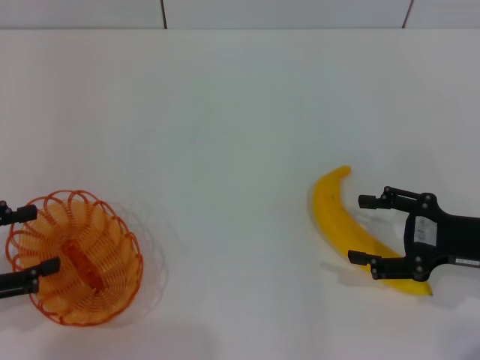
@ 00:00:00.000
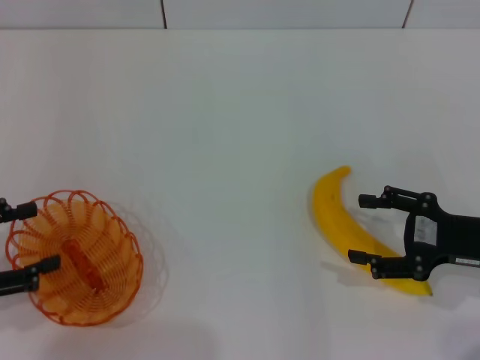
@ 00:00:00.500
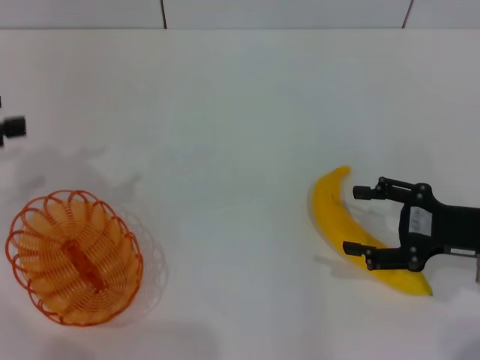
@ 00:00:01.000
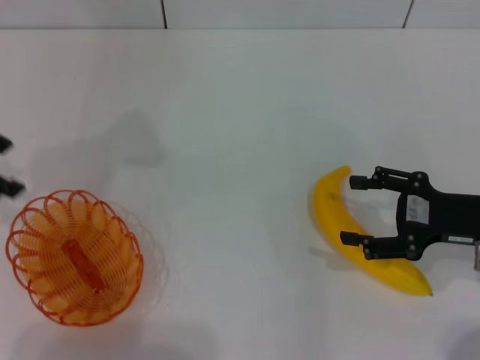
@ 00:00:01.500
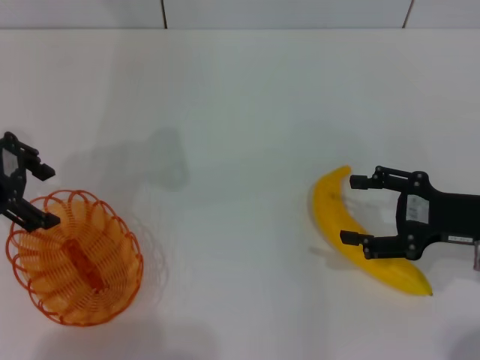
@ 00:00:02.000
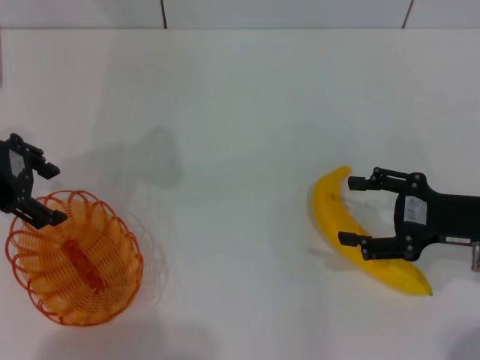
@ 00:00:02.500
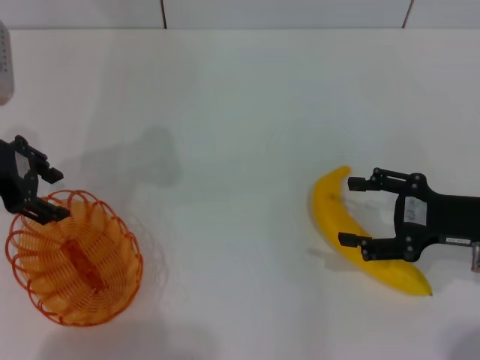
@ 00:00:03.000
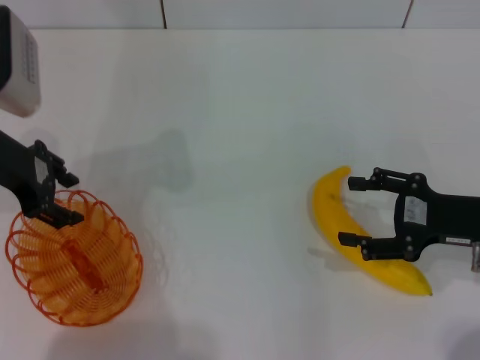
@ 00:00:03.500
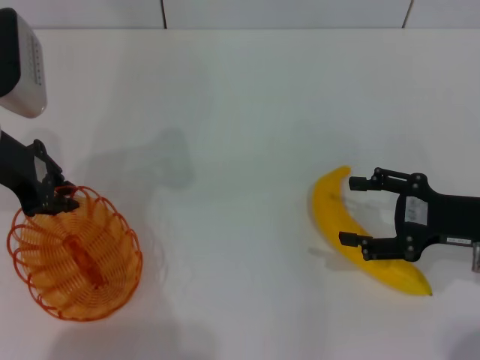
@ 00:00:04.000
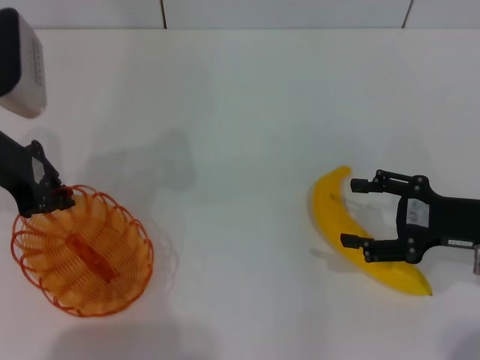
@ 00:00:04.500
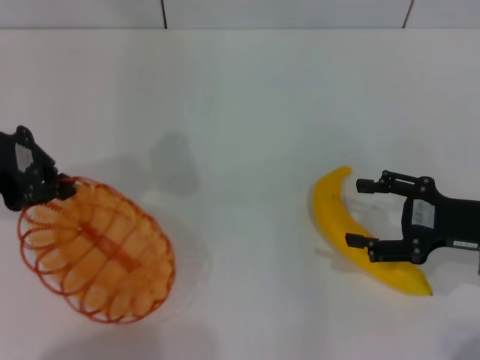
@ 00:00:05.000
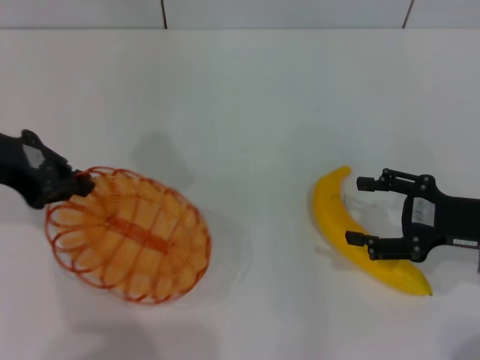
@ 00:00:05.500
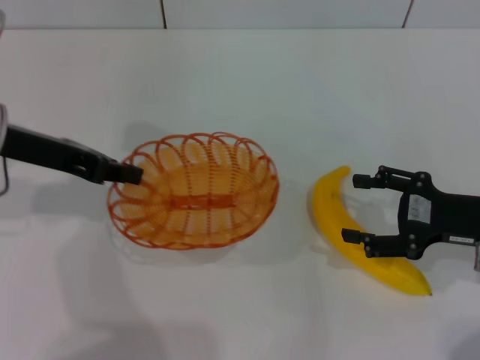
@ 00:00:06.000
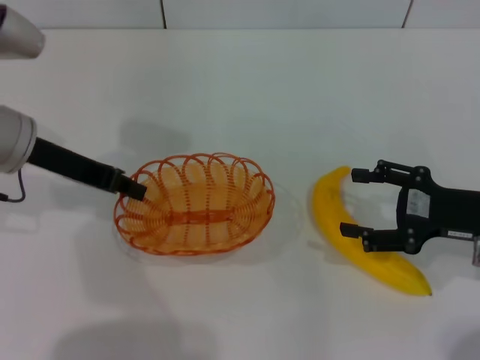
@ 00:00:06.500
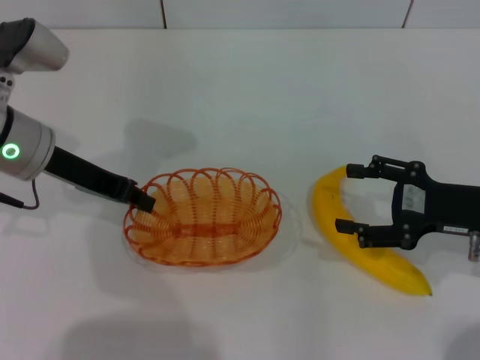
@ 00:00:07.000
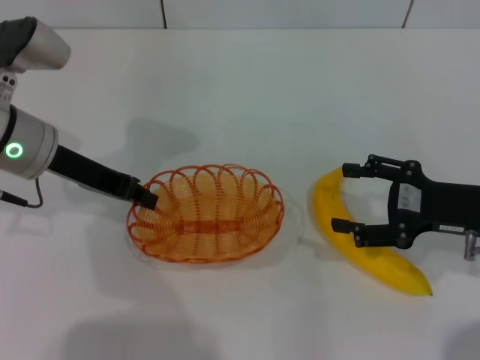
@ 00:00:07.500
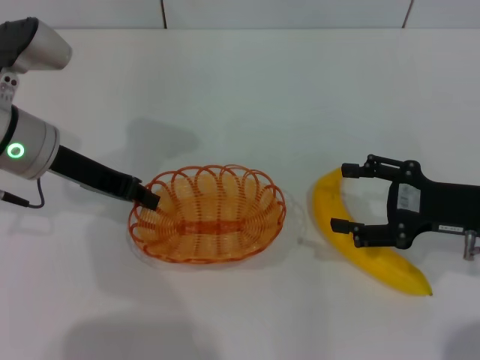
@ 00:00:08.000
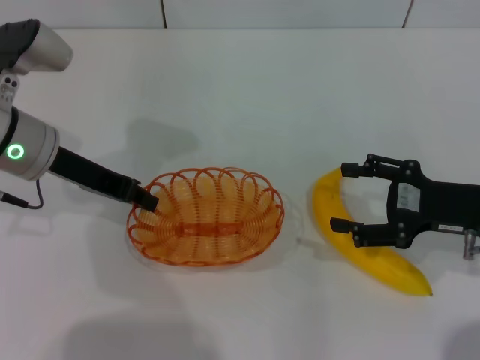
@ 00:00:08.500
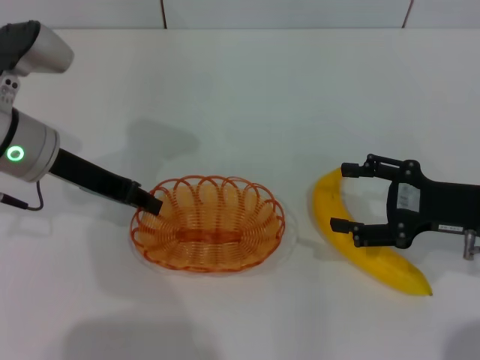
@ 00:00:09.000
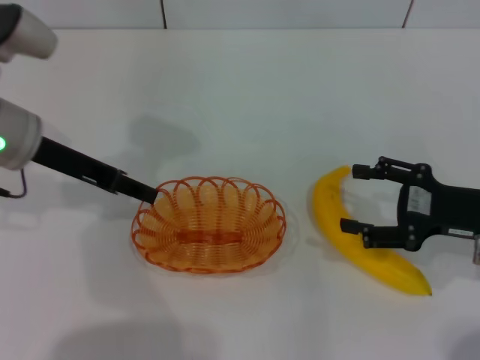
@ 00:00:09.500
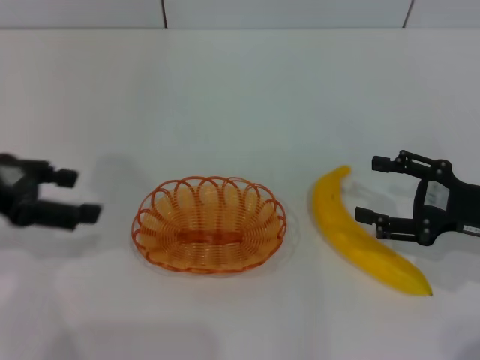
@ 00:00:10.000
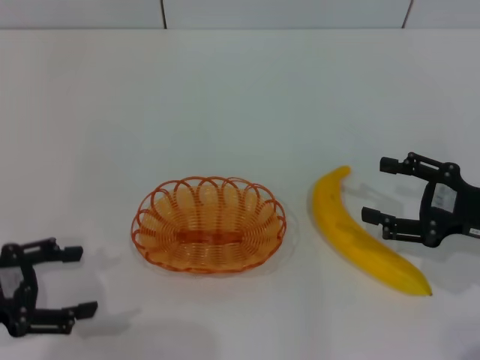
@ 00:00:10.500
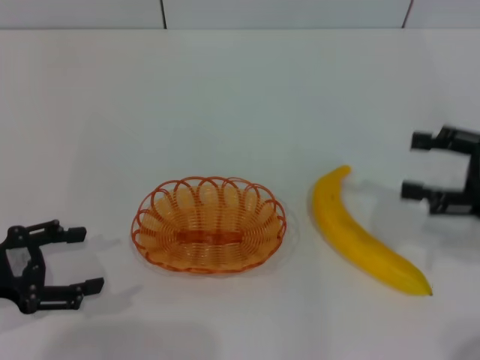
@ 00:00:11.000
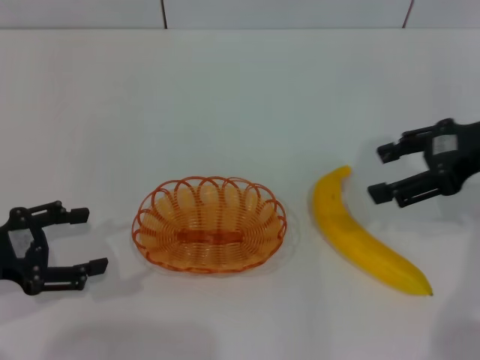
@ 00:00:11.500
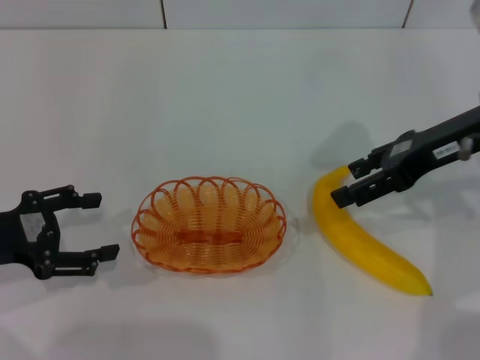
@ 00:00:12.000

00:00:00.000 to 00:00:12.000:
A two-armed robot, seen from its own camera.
Step, 00:00:00.000 to 00:00:05.000: Pick up the basket with the left gripper.
Step, 00:00:05.500 to 00:00:09.500: Place the basket in the center of view with the left gripper.
00:00:00.000 to 00:00:02.000: The left gripper shifts some 20 cm forward, upward and to the right.
00:00:02.000 to 00:00:04.000: The left gripper closes its fingers.
00:00:04.000 to 00:00:06.000: The left gripper closes.
00:00:06.000 to 00:00:08.000: The left gripper shifts by approximately 5 cm.
00:00:08.000 to 00:00:10.000: The left gripper shifts about 10 cm to the left and backward, and opens its fingers.
00:00:10.000 to 00:00:12.000: The left gripper heads downward, covering some 10 cm, while the right gripper moves upward, forward and to the left, about 15 cm.

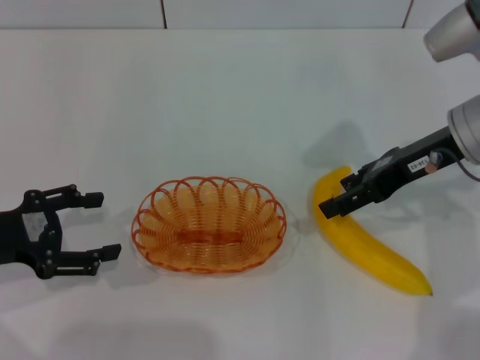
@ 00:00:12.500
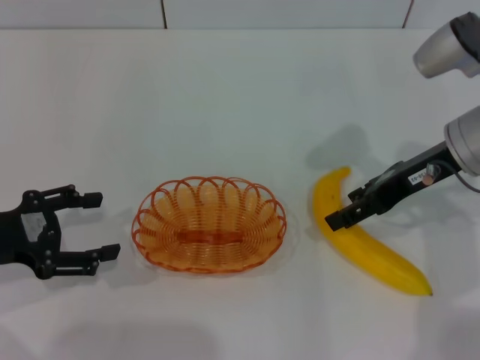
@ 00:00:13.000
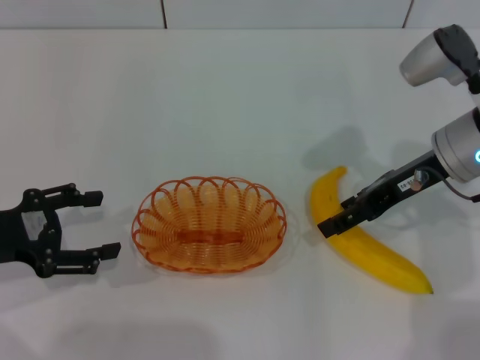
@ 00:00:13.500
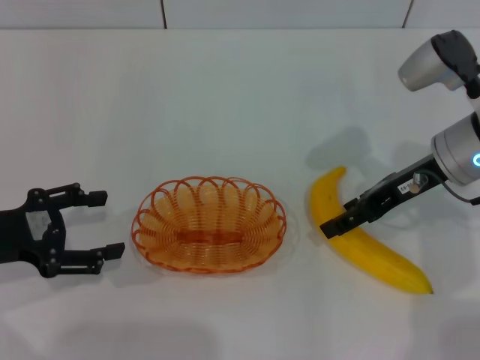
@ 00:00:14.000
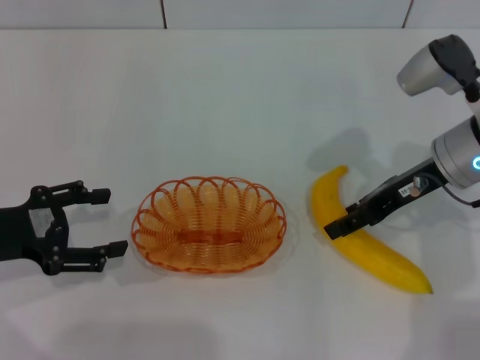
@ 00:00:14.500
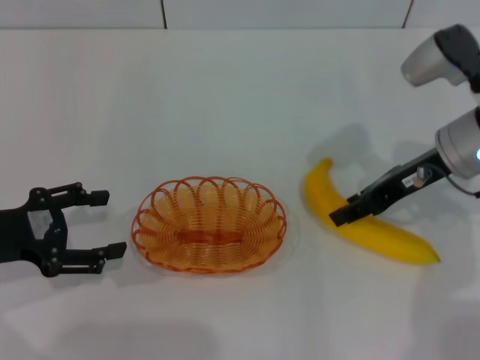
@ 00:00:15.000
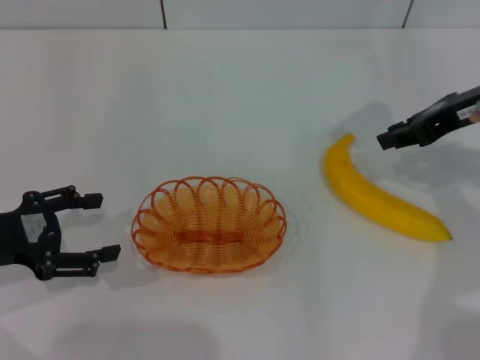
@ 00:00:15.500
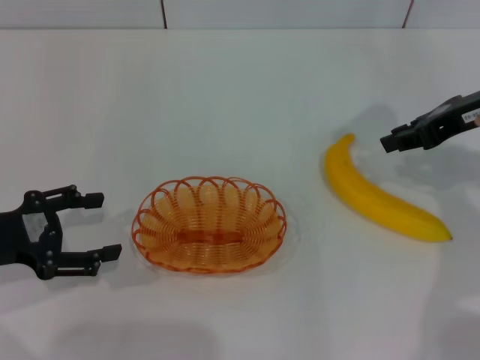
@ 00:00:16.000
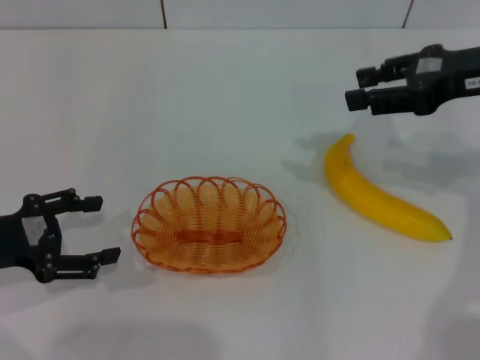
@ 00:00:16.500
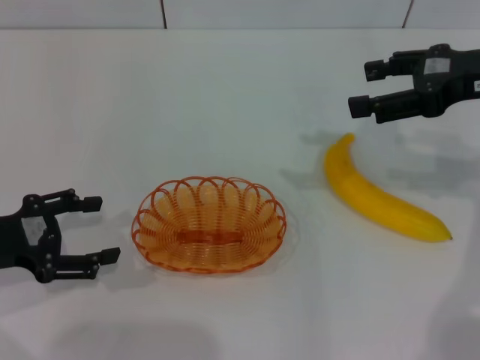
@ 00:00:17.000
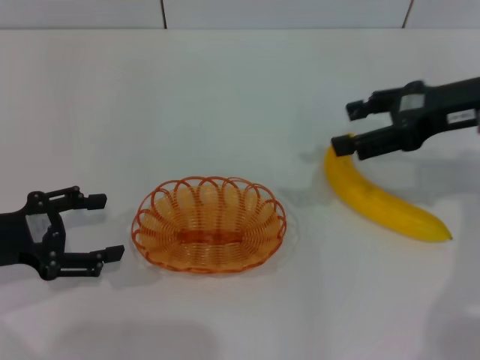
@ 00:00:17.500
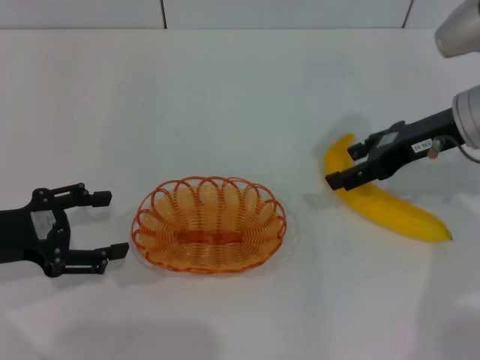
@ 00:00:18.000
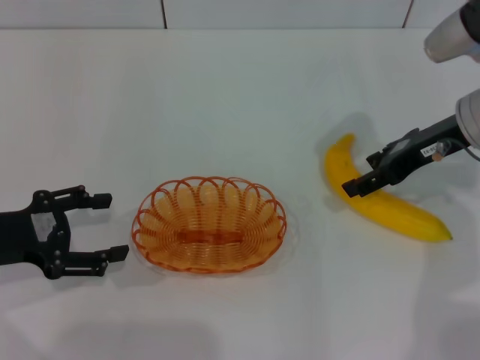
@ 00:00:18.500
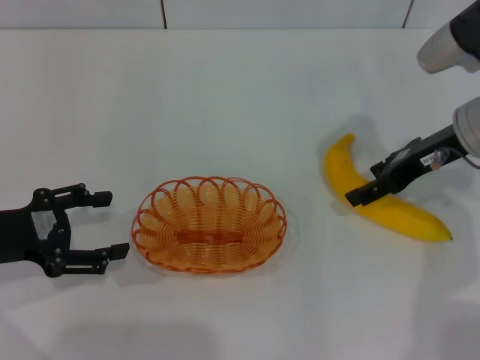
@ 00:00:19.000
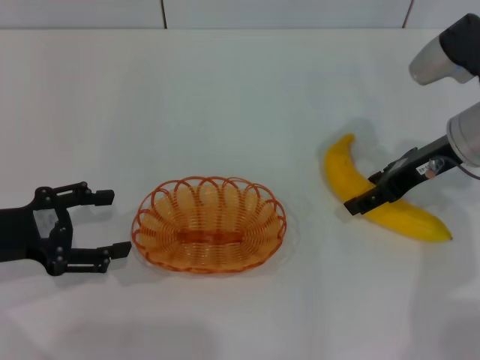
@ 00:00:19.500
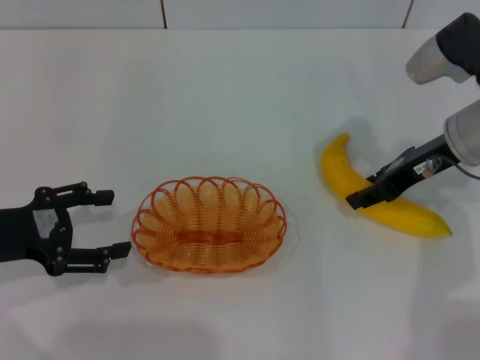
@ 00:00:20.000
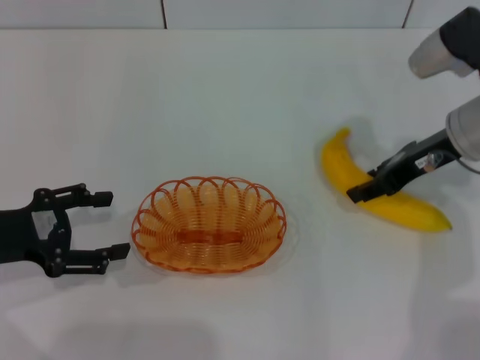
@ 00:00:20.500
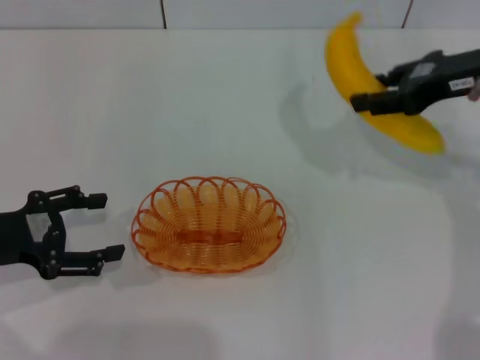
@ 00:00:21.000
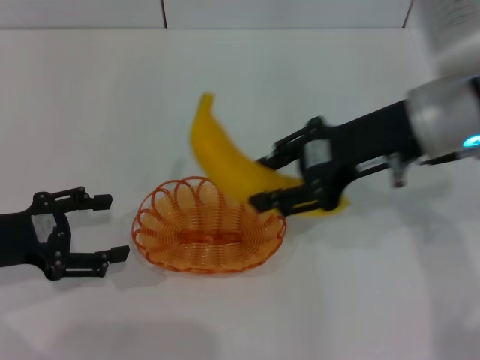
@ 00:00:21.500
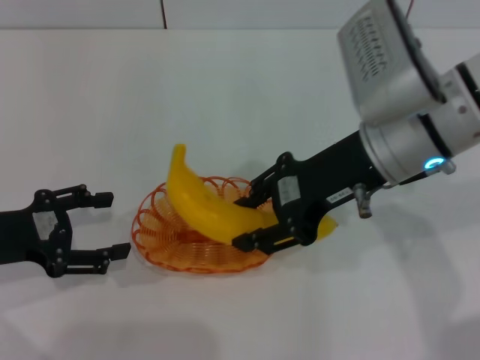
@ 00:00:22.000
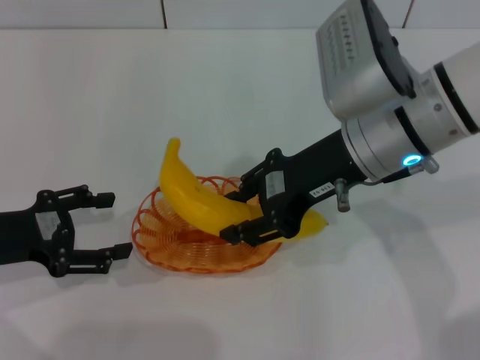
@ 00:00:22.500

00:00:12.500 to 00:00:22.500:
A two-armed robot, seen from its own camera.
Step, 00:00:12.500 to 00:00:20.500: Pick up the banana with the right gripper.
00:00:12.500 to 00:00:14.500: The grippers make only small movements.
00:00:14.500 to 00:00:16.500: The right gripper moves upward and to the right, some 10 cm, and closes.
00:00:16.500 to 00:00:18.500: The right gripper shifts some 5 cm downward, and opens.
00:00:18.500 to 00:00:20.500: The right gripper closes.
00:00:20.500 to 00:00:22.500: The right gripper is displaced to the left by approximately 10 cm.

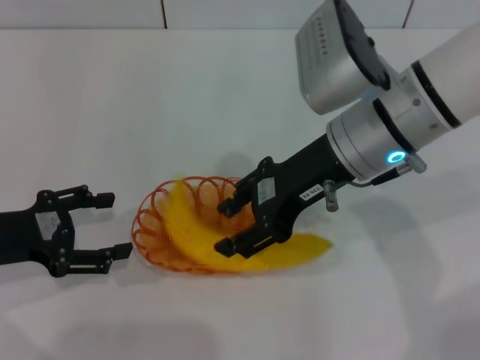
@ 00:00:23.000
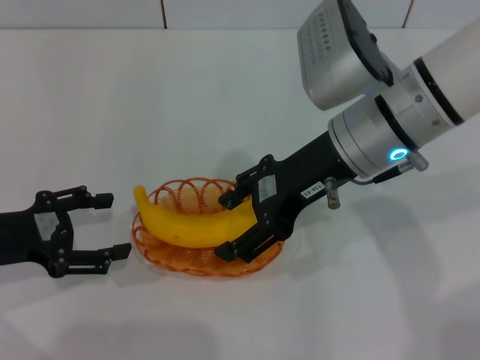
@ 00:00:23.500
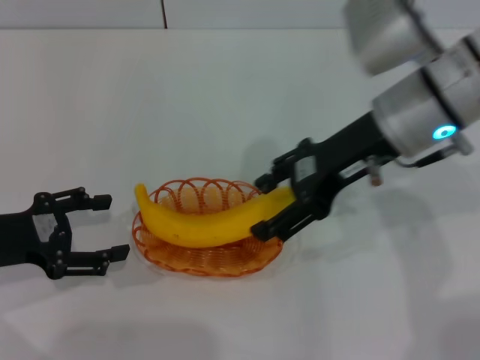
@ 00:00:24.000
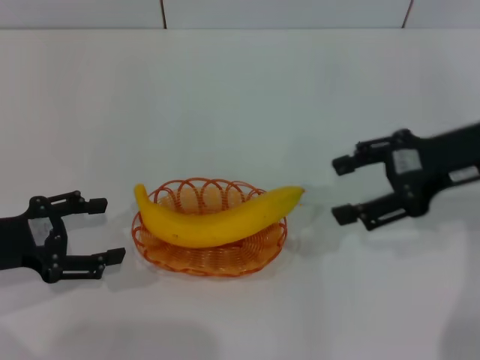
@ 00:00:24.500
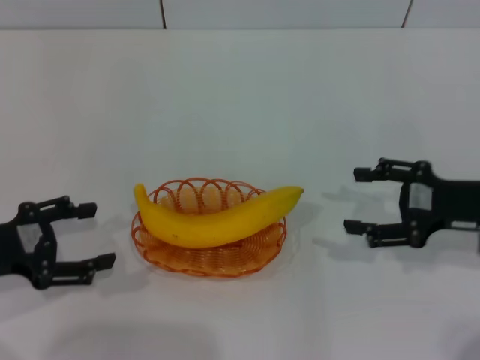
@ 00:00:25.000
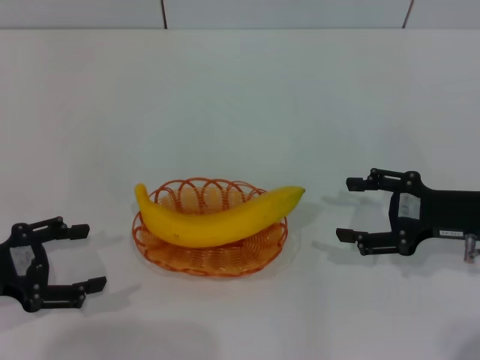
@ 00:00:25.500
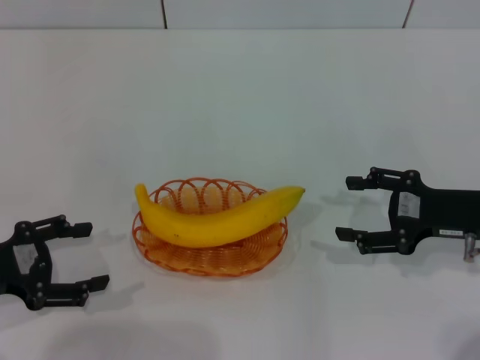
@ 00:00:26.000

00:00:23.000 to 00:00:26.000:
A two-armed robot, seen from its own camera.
00:00:23.000 to 00:00:24.500: The right gripper shifts some 15 cm to the right, and opens.
00:00:24.500 to 00:00:26.000: The right gripper goes about 10 cm downward.
